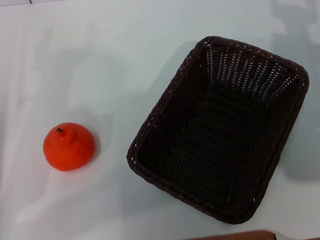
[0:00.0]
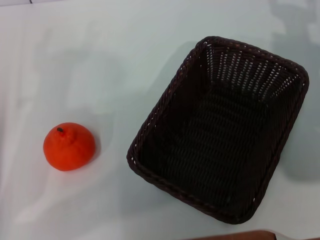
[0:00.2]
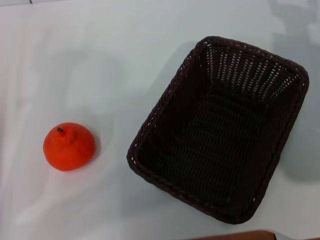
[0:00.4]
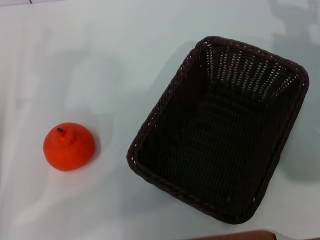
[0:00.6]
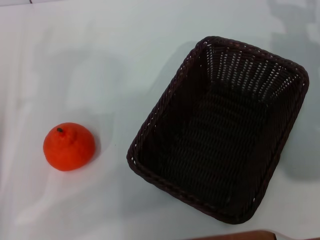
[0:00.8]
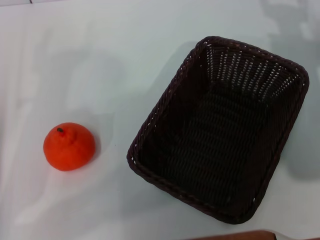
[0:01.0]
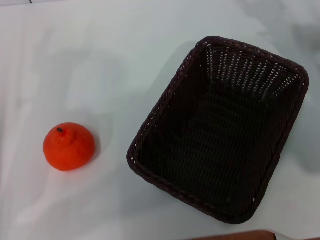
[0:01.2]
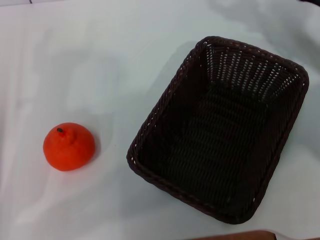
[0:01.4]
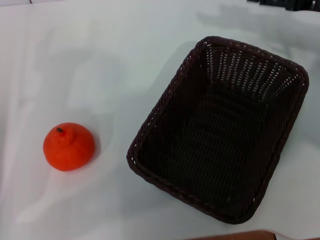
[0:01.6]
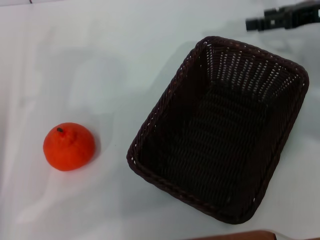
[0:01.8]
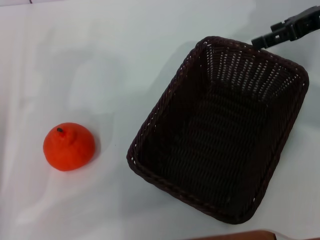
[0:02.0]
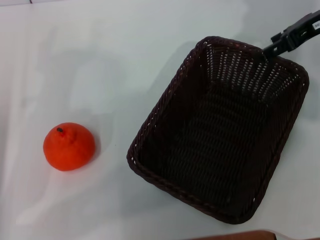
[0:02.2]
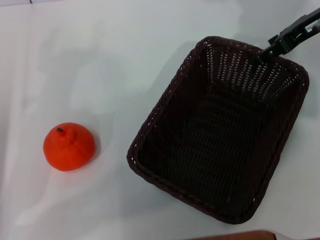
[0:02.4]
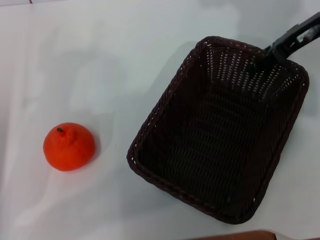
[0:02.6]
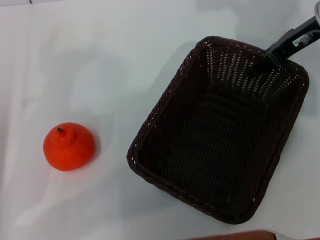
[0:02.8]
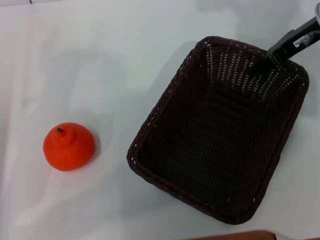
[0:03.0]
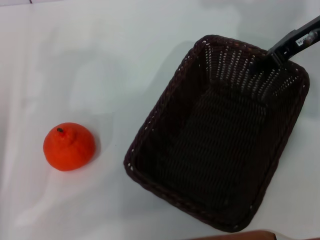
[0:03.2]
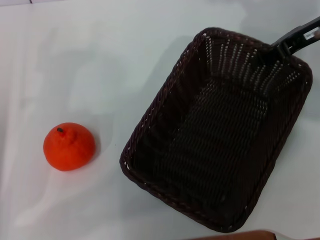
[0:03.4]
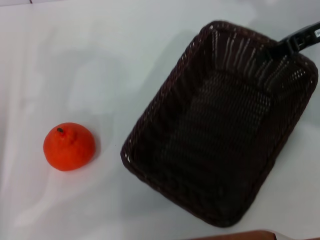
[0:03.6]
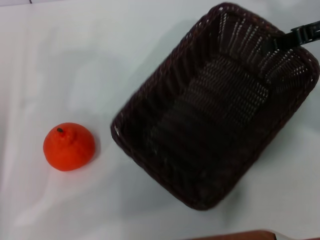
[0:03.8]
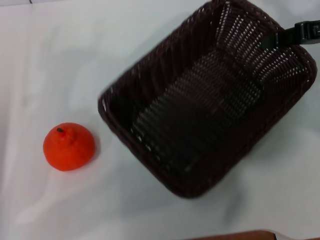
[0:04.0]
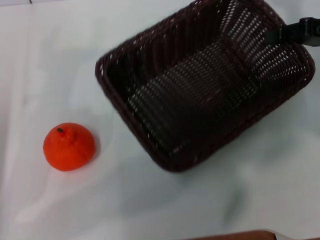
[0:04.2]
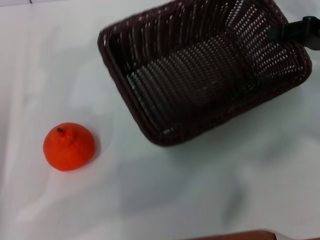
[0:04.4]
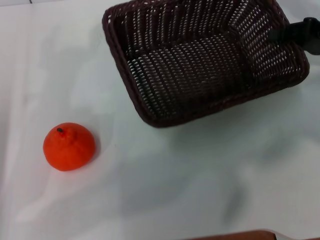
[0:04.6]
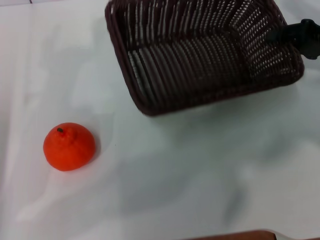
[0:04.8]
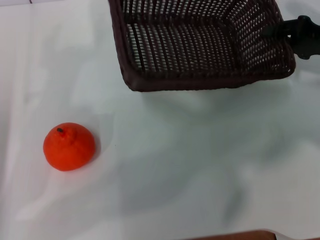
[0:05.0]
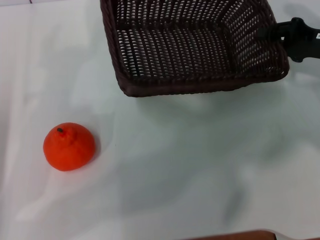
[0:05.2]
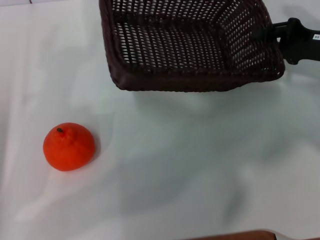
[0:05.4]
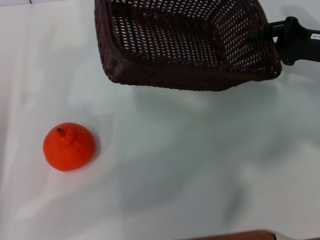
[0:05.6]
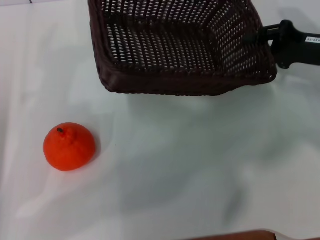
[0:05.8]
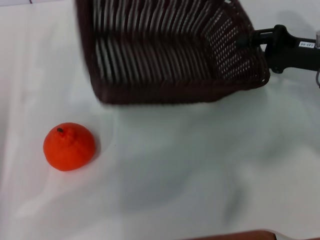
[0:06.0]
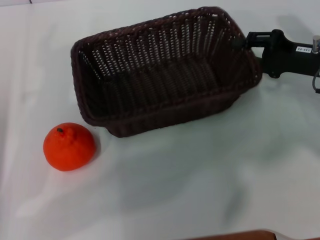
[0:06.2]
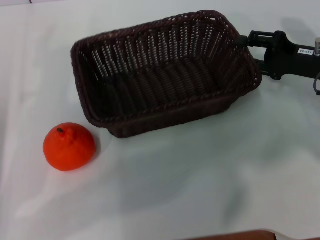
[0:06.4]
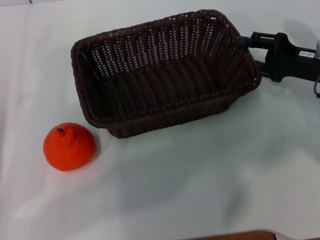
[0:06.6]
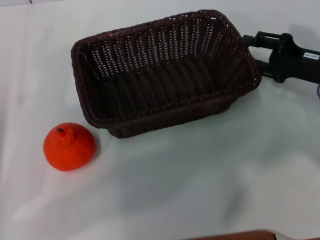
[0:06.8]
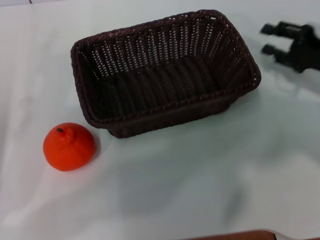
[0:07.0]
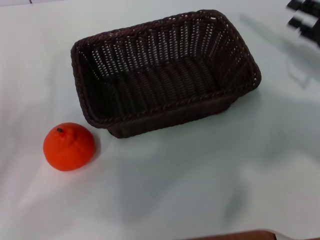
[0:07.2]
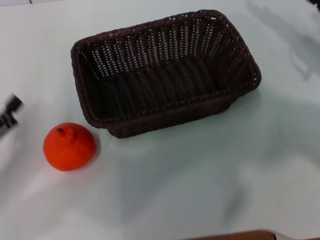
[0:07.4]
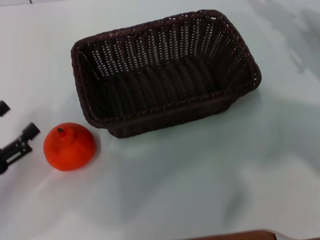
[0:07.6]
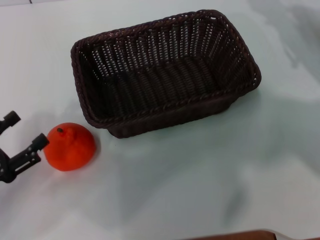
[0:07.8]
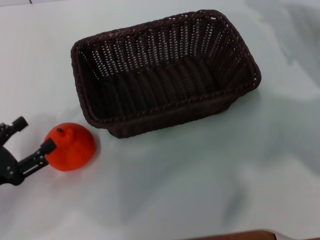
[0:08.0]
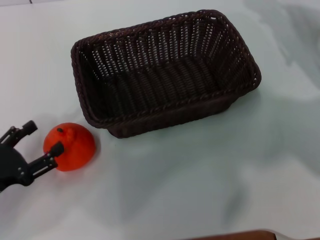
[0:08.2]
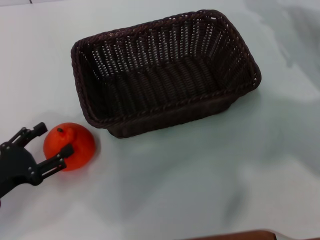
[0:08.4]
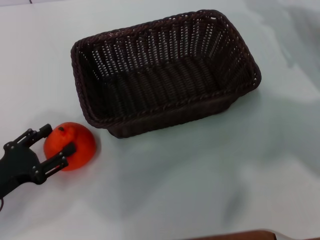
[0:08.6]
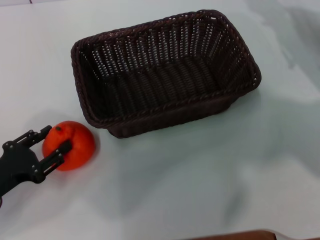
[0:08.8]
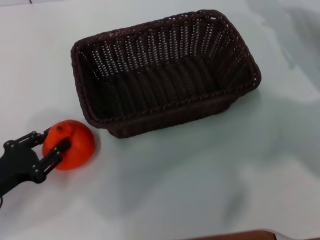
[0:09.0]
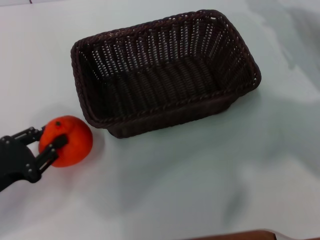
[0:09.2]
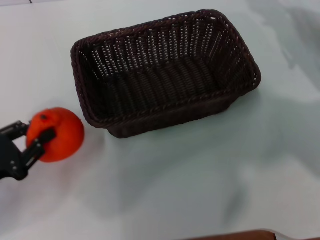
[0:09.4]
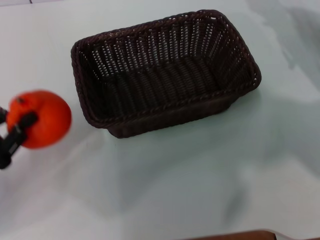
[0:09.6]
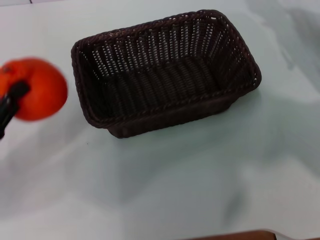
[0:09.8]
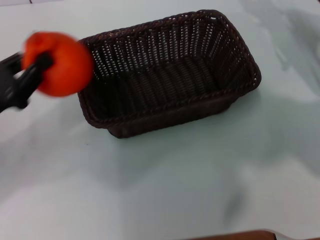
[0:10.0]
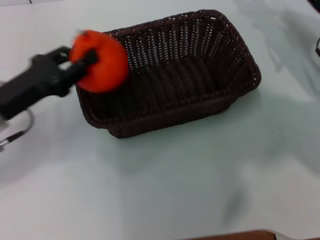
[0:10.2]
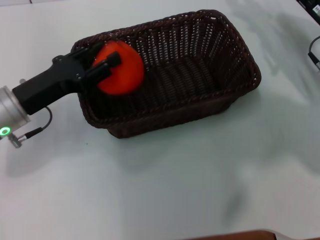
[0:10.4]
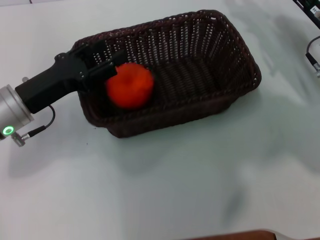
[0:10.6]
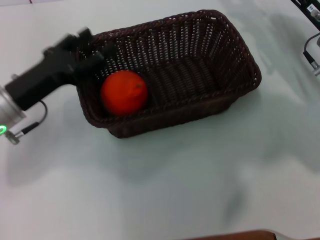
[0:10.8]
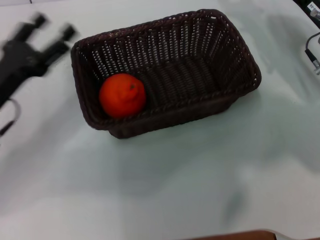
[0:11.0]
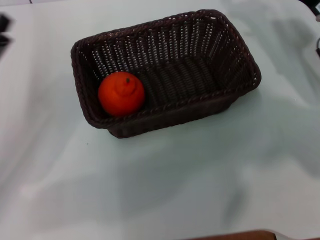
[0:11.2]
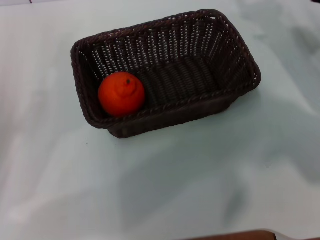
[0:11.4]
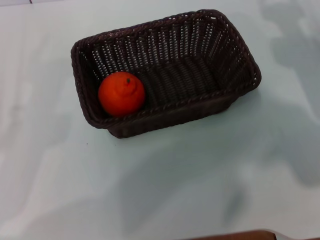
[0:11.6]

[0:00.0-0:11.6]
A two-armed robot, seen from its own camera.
Task of the whole recording: the right gripper pick up the black basket and place it horizontally in the middle of the table, the left gripper pick up the orange and place it into the black basket.
Step, 0:00.0 to 0:04.0: Pick up the dark basket with the right gripper.
Step, 0:04.2 to 0:06.8: Place the dark basket in the center of view with the right gripper.
Step, 0:07.0 to 0:09.4: Pick up the orange with the left gripper.
Step, 0:09.6 to 0:10.6: Place the orange into the dark basket with the left gripper.
0:00.0 to 0:01.4: The right gripper goes about 5 cm upward.
0:01.4 to 0:02.8: The right gripper shifts approximately 10 cm to the left and upward.
0:02.8 to 0:04.4: The right gripper shifts roughly 10 cm to the right, and closes.
0:04.4 to 0:05.8: The right gripper changes place by some 5 cm.
0:05.8 to 0:07.2: The right gripper opens up.
0:08.8 to 0:10.2: The left gripper travels forward, upward and to the right by approximately 15 cm, and closes.
0:10.2 to 0:11.6: The left gripper shifts roughly 10 cm backward and to the left, and opens up.
